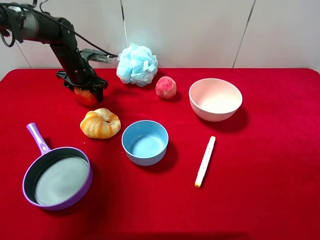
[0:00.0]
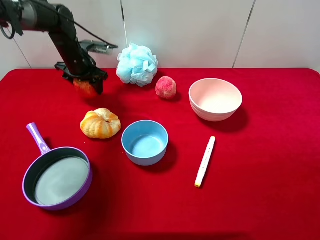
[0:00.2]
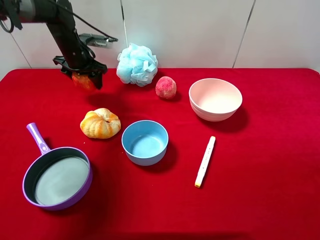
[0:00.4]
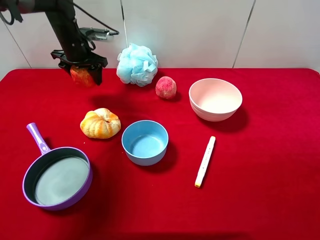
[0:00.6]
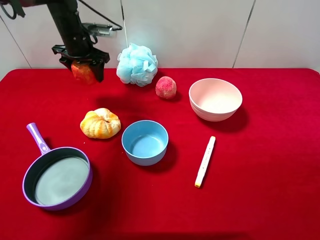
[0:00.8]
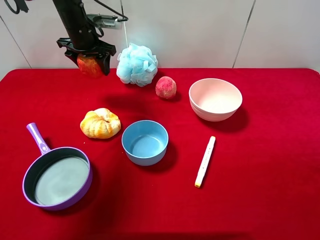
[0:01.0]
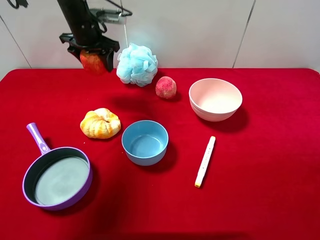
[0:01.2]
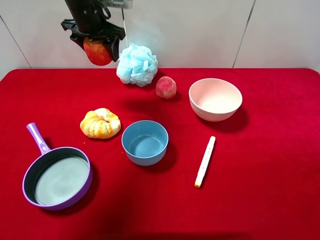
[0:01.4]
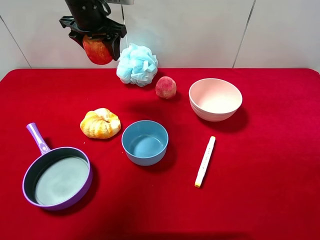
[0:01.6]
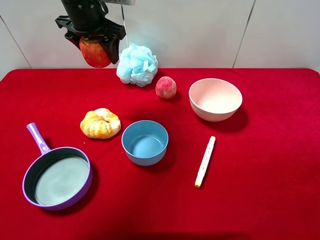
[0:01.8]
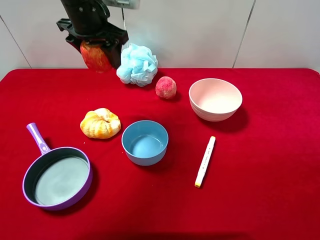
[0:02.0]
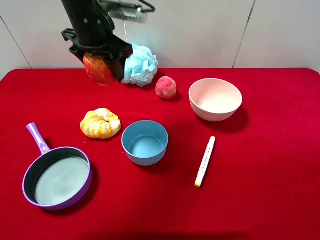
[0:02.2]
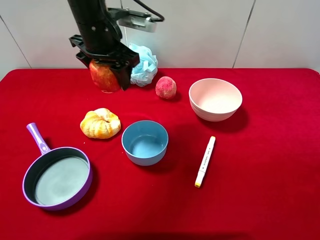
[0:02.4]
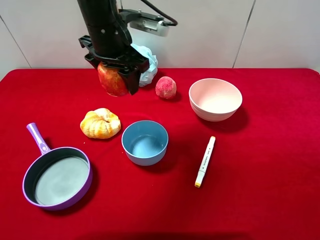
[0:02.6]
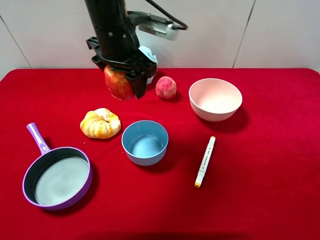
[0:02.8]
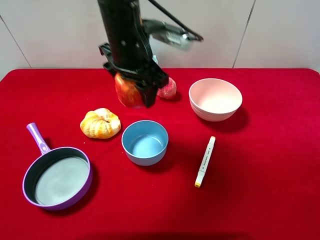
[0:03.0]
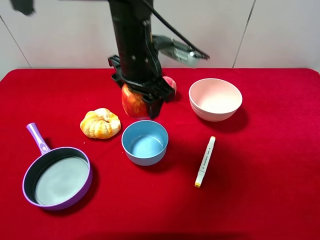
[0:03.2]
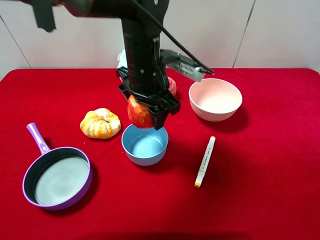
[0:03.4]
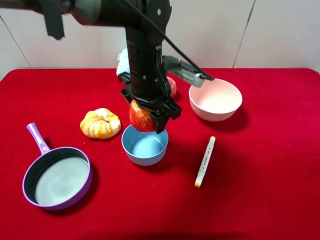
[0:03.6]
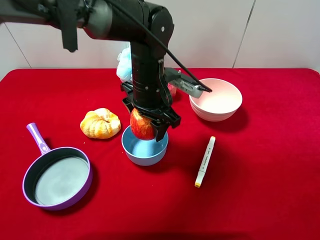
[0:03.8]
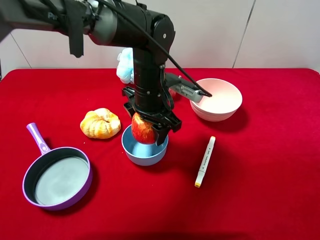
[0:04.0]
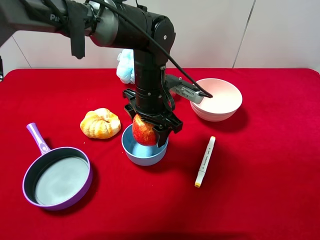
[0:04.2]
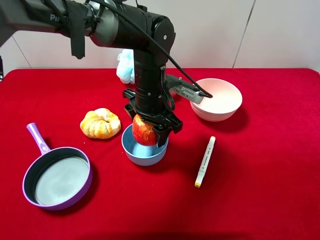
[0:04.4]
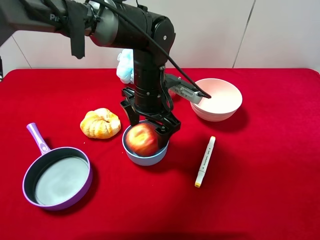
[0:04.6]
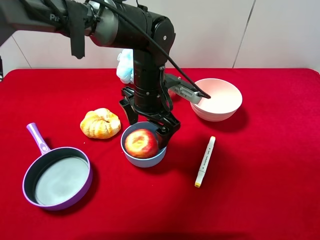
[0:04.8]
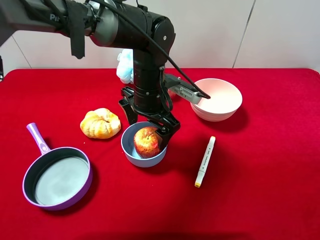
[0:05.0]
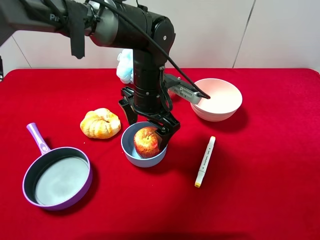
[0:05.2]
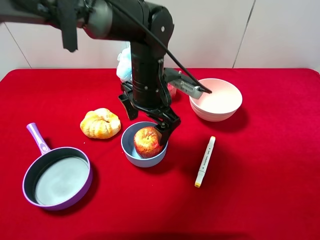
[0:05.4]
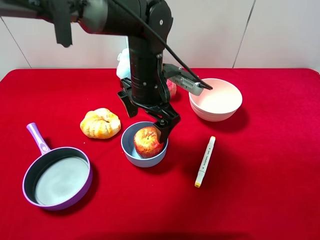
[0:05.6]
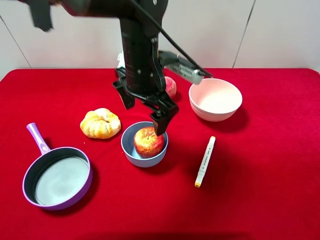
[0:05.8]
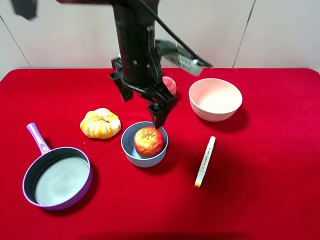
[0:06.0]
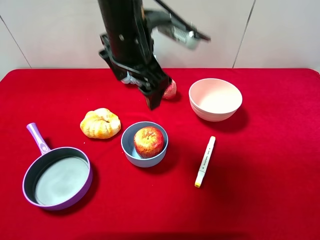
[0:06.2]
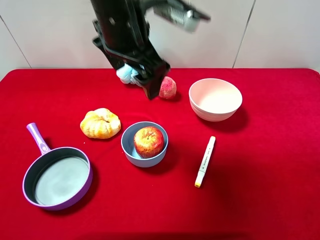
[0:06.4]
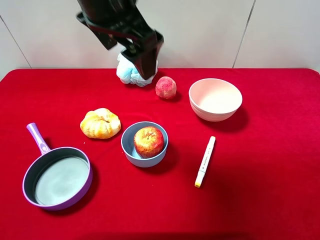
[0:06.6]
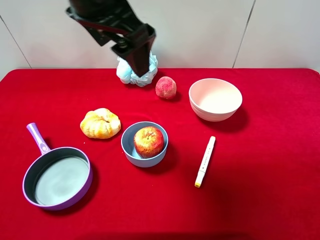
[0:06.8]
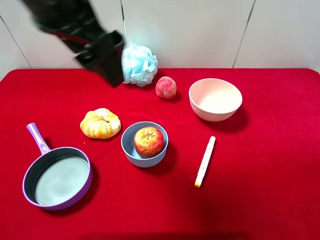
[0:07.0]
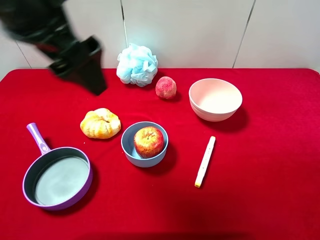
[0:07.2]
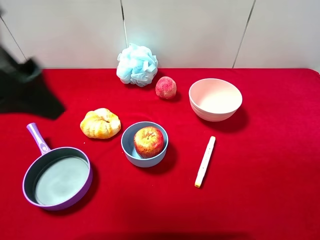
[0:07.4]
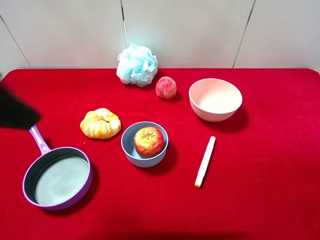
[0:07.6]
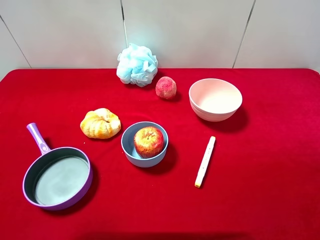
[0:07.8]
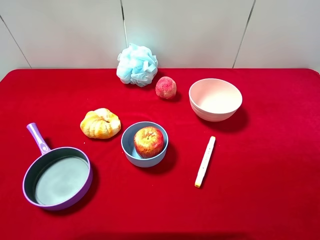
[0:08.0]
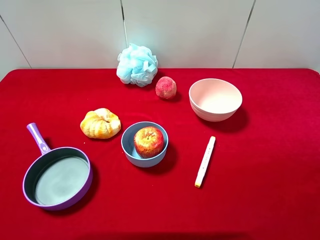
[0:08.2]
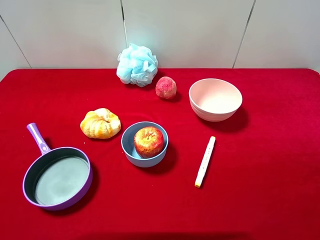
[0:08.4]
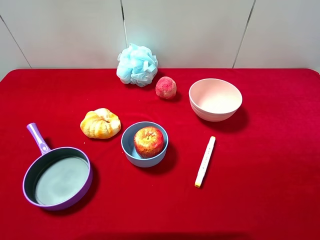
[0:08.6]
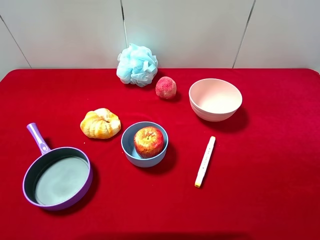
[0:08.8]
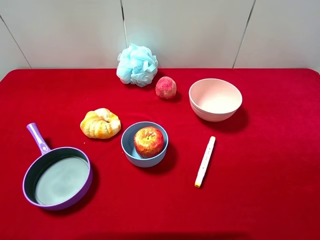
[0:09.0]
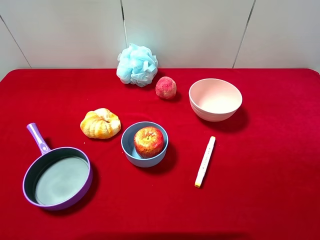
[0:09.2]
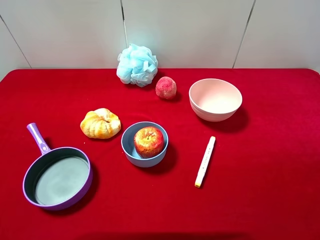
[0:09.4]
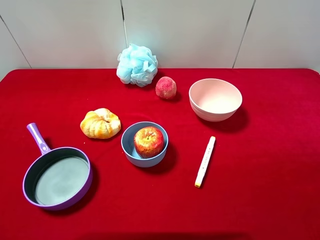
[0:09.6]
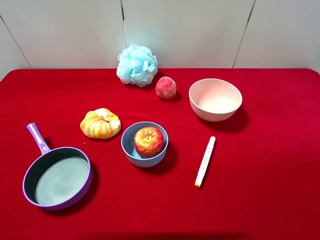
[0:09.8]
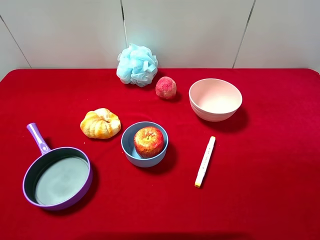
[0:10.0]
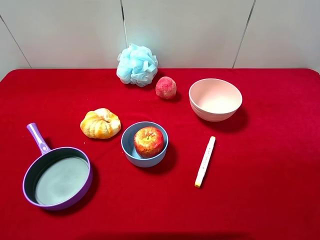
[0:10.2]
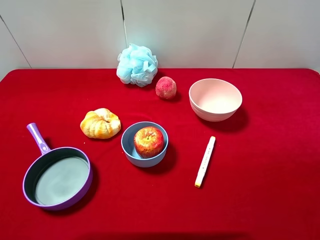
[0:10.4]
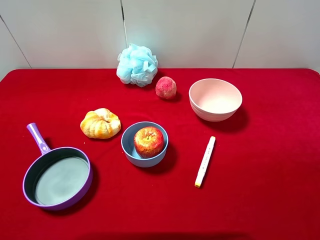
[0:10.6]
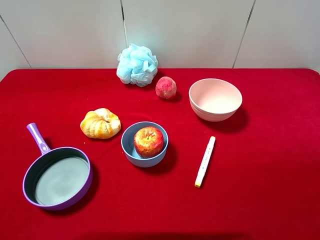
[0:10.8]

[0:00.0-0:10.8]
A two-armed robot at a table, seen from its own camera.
Task of the whole recording: pick up an item with a gripper and place it in a random container on the desktop.
0:00.0 to 0:01.6: The left gripper goes approximately 15 cm upward and to the right.
0:01.6 to 0:03.0: The left gripper heads backward and to the right, covering roughly 15 cm.
0:03.0 to 0:04.6: The left gripper shifts roughly 10 cm downward, and opens up.
0:04.6 to 0:06.2: The left gripper heads upward, covering approximately 15 cm.
0:06.2 to 0:07.8: The left gripper goes some 30 cm backward and to the left.
0:09.2 to 0:10.8: Neither gripper changes place.
